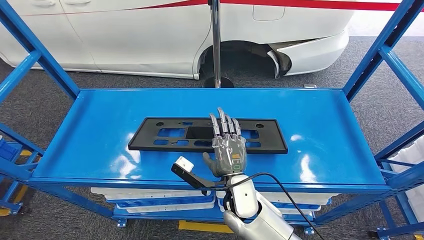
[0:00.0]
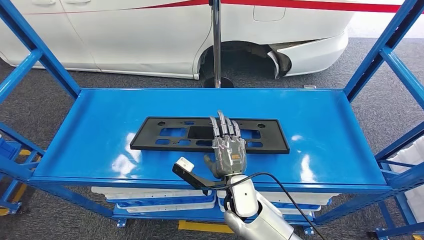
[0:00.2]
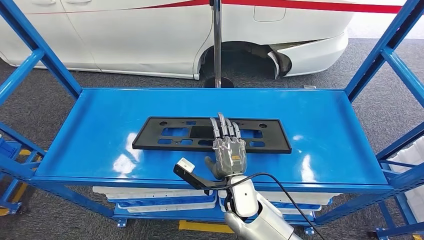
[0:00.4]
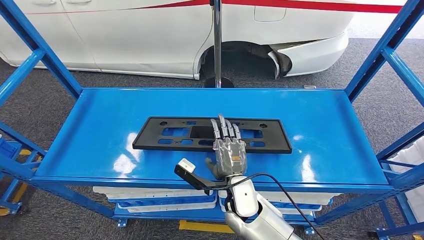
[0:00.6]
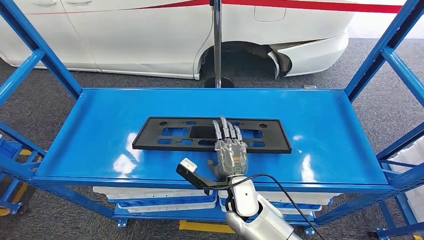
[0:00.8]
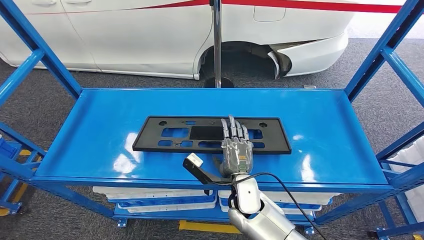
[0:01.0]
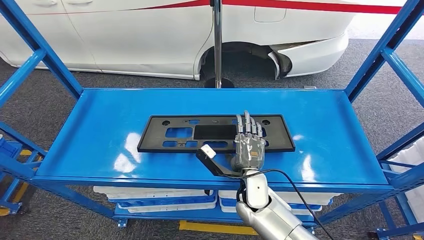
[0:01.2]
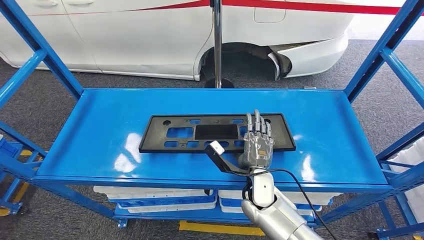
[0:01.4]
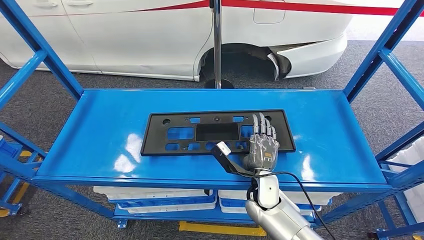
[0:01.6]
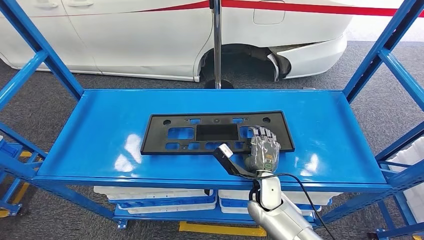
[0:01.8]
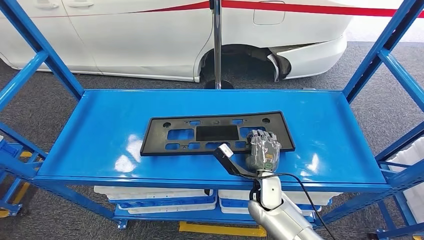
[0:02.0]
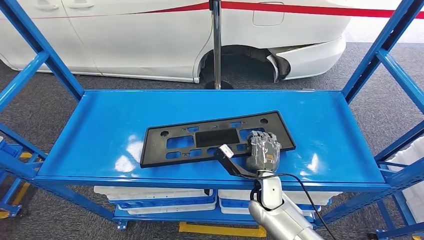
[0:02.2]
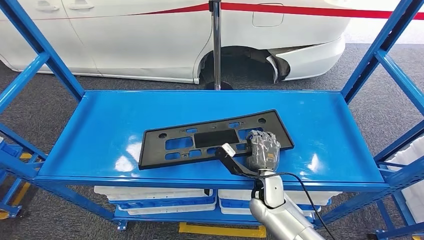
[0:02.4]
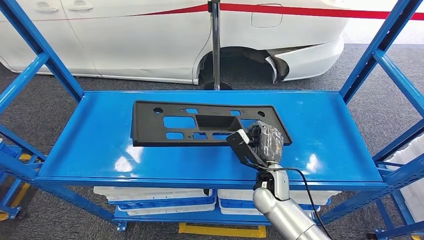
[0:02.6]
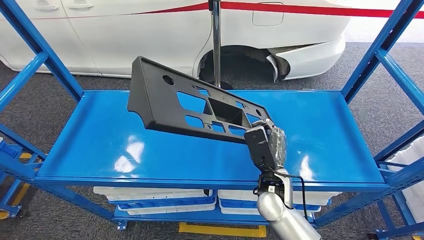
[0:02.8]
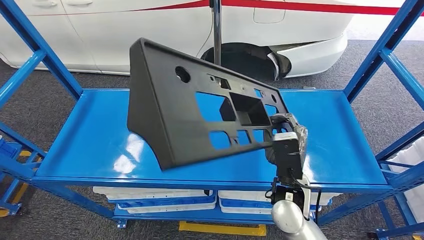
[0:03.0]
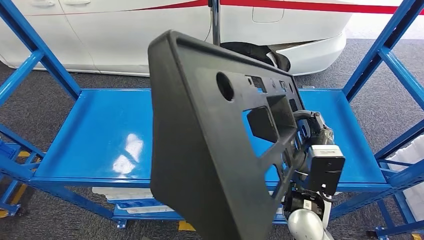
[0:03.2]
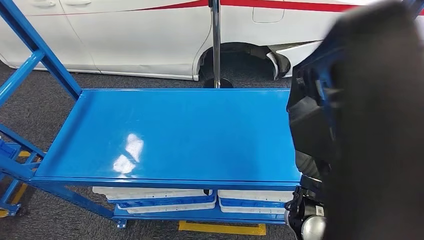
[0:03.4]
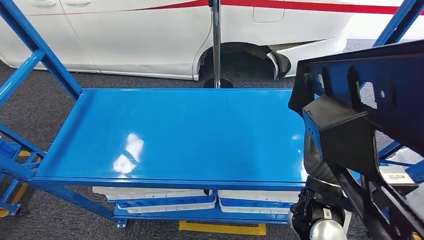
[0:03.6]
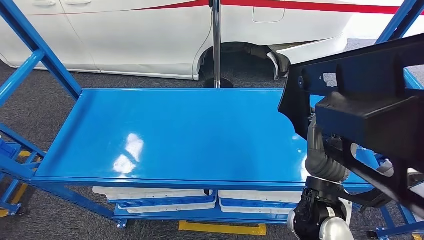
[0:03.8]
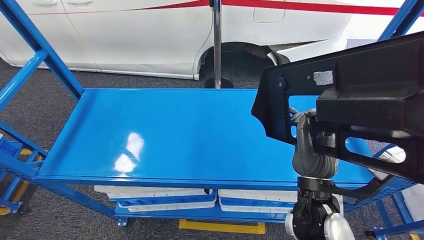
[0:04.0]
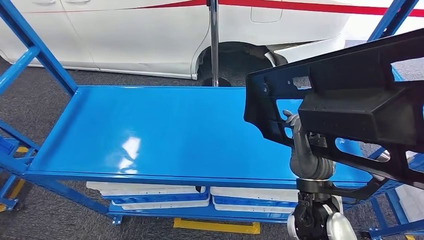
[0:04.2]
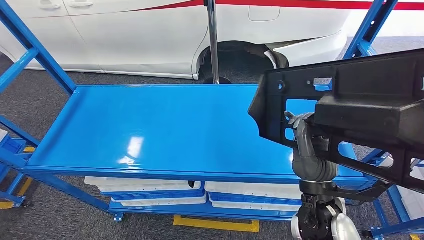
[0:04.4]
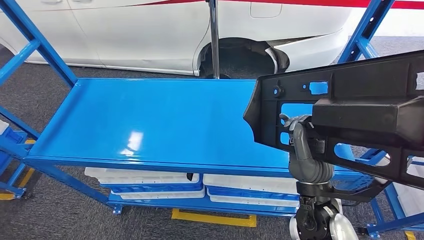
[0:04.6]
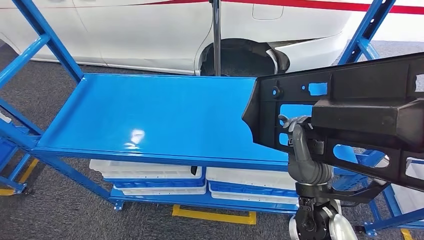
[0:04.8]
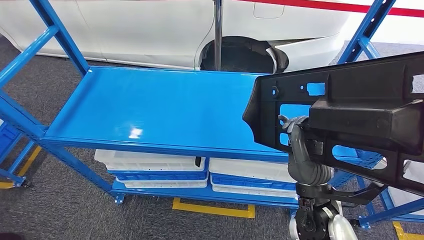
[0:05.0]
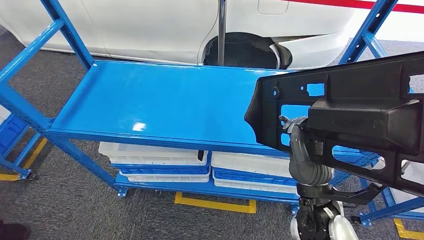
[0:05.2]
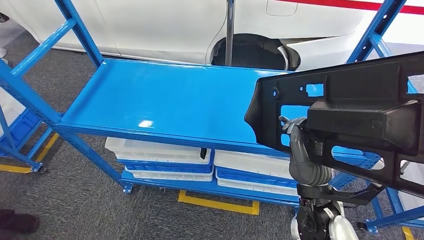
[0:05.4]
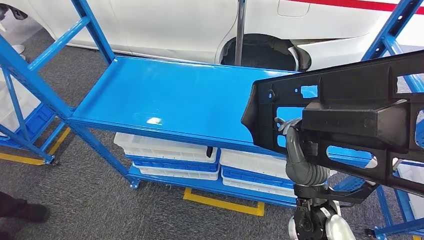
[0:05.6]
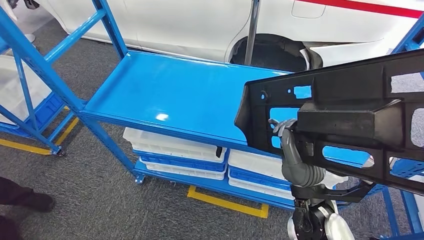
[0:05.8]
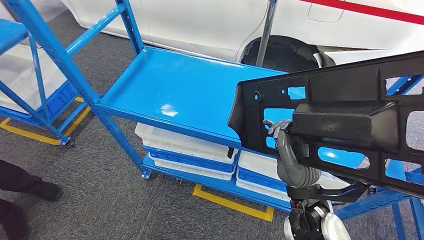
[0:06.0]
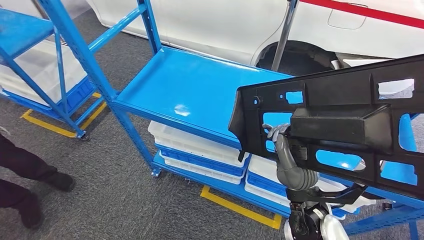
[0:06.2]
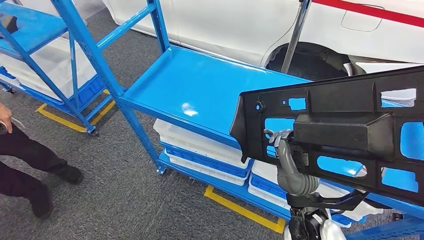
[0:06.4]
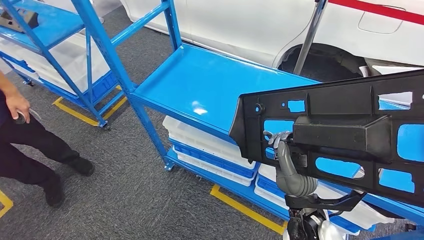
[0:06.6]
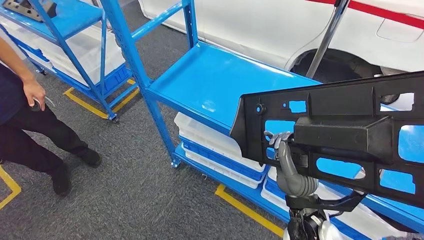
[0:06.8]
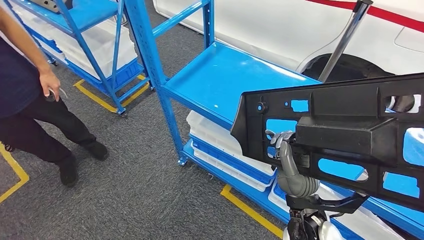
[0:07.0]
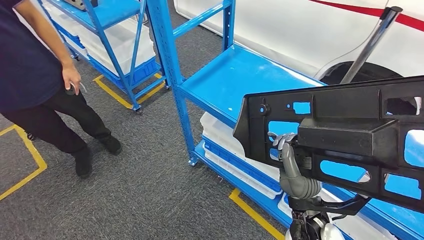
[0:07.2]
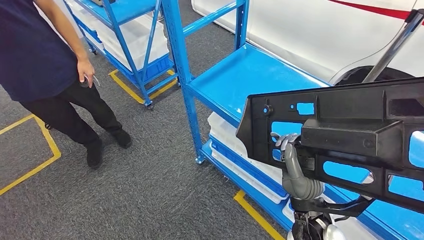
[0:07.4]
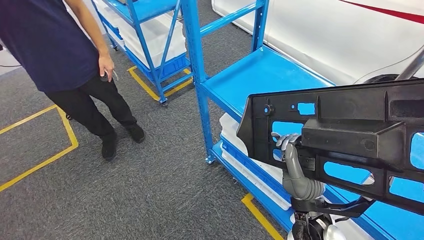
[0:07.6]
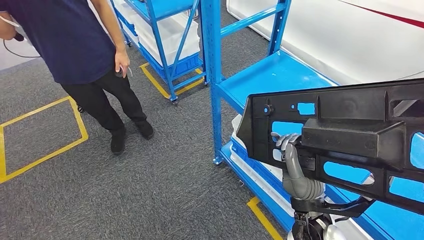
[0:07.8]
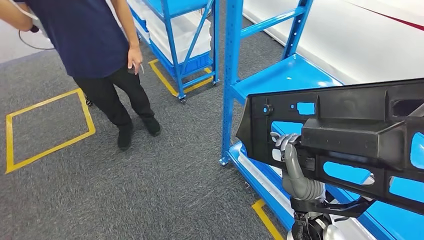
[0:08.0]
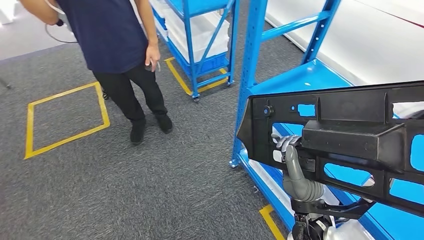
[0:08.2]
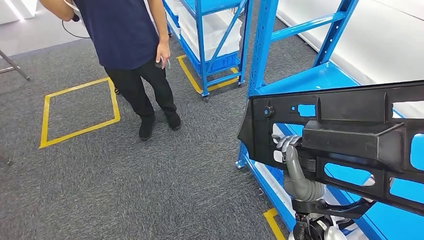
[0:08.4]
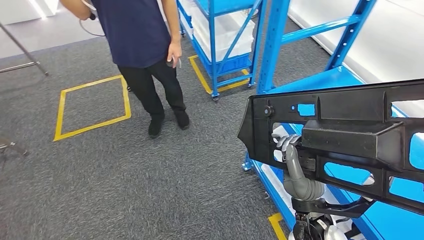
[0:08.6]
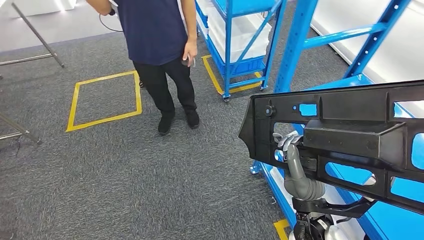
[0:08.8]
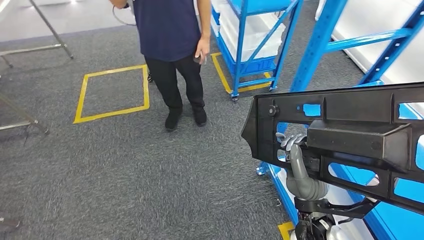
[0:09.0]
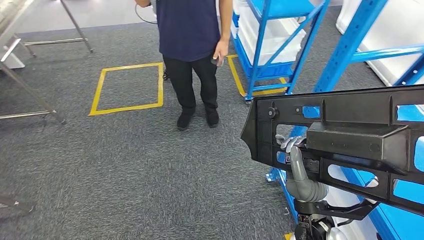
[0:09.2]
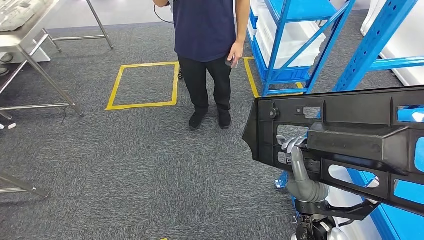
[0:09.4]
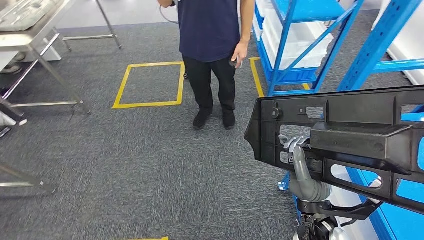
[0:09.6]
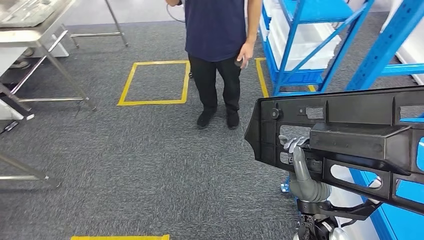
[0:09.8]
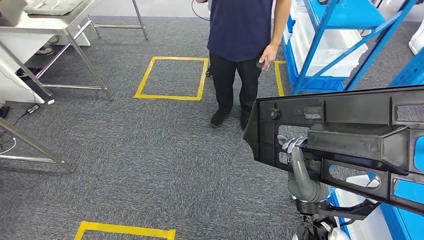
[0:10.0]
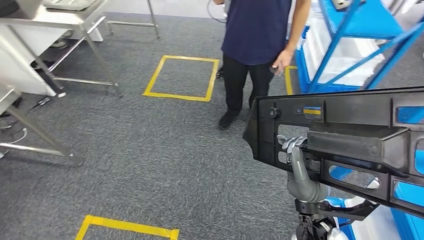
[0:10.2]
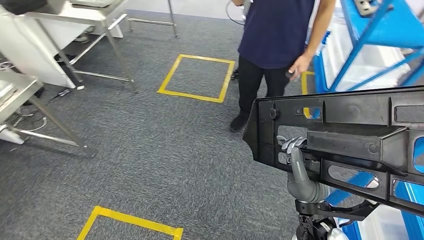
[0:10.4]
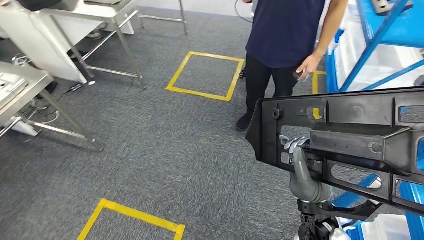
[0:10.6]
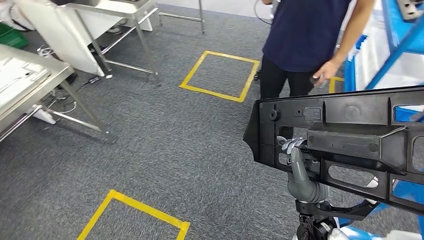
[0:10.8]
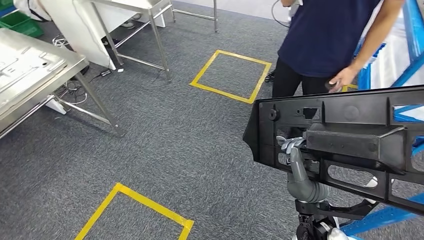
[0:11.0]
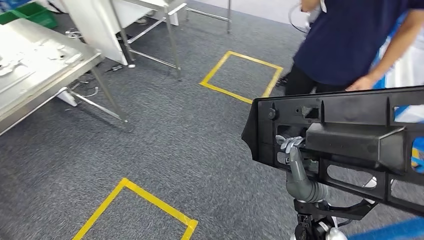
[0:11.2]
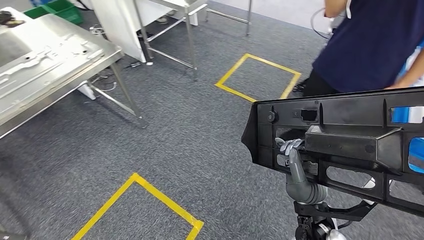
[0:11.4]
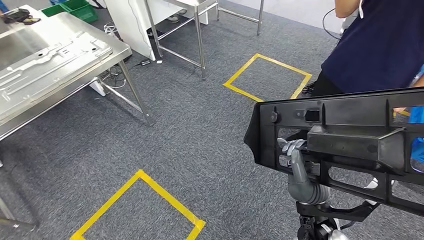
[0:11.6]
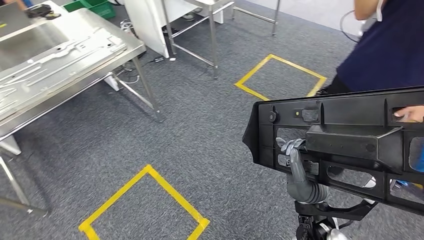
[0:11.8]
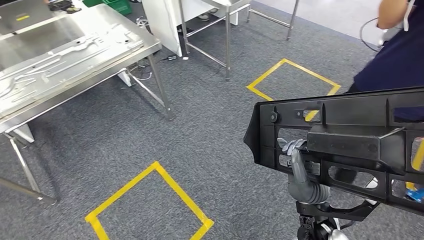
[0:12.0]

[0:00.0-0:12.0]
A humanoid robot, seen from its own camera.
Step, 0:00.0 to 0:03.4: Pick up the large material from the shelf.
0:01.6 to 0:03.0: The right hand is displaced upward by about 10 cm.

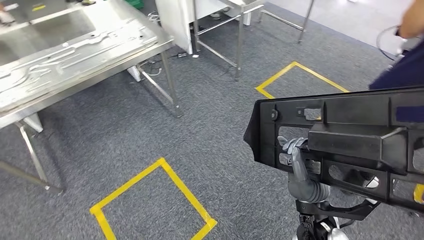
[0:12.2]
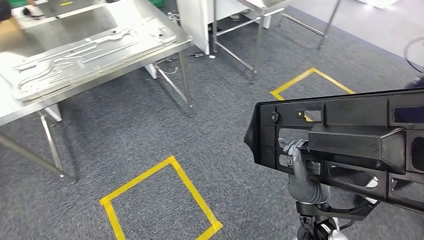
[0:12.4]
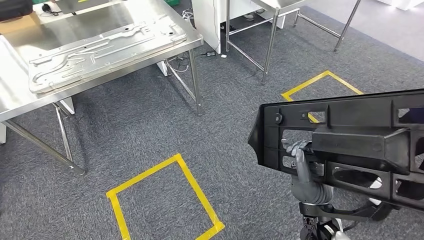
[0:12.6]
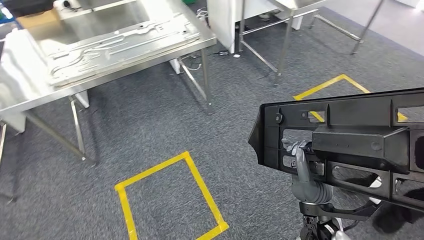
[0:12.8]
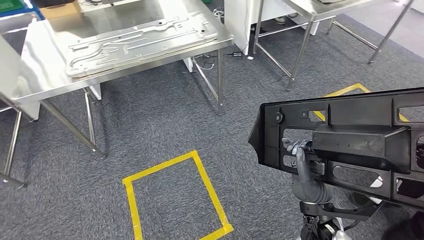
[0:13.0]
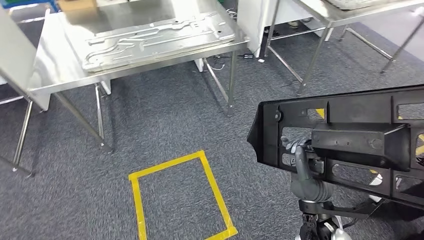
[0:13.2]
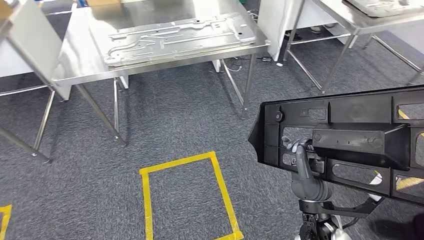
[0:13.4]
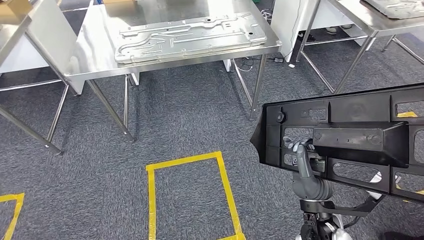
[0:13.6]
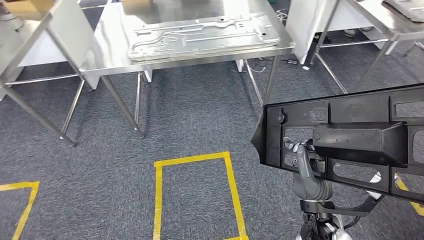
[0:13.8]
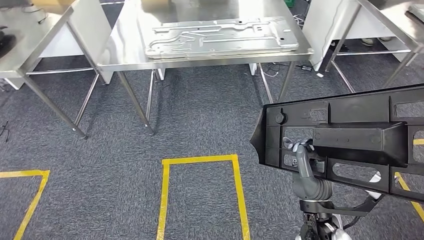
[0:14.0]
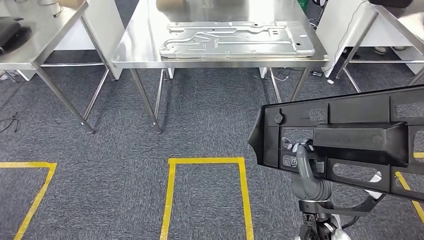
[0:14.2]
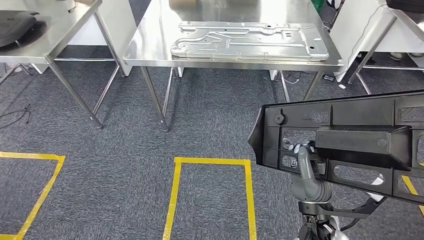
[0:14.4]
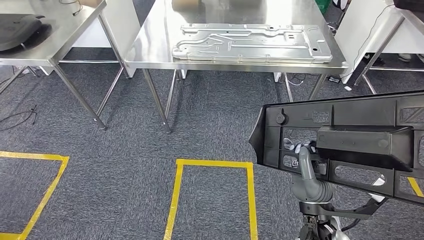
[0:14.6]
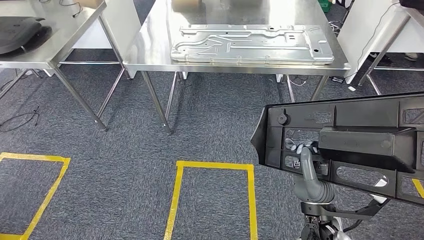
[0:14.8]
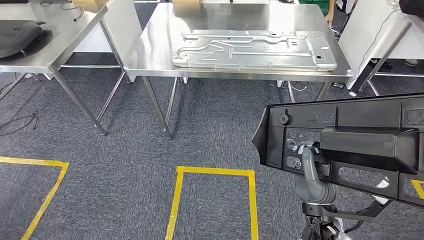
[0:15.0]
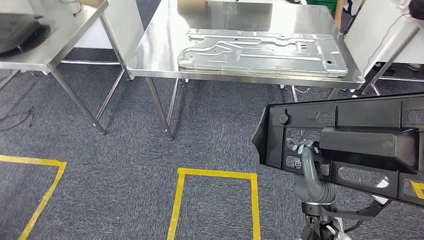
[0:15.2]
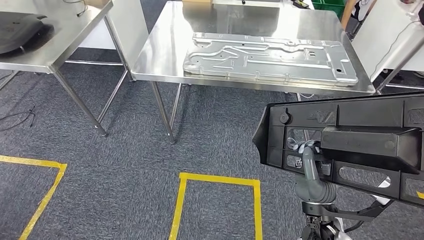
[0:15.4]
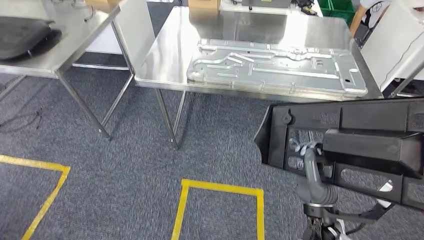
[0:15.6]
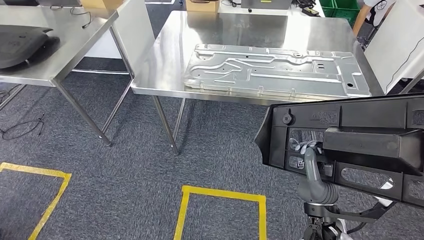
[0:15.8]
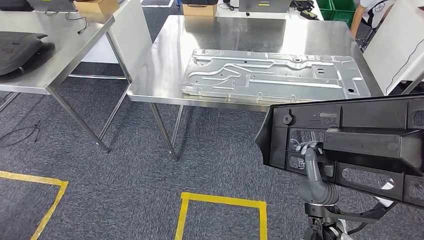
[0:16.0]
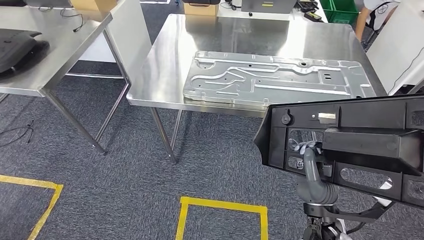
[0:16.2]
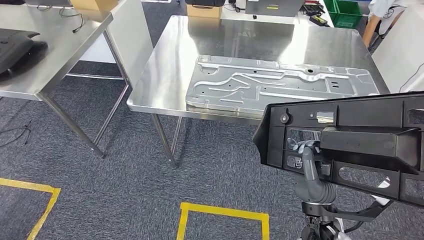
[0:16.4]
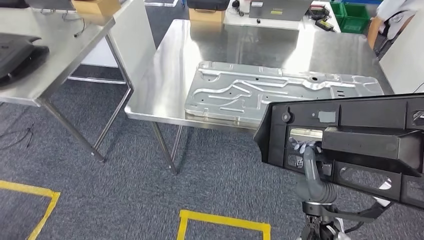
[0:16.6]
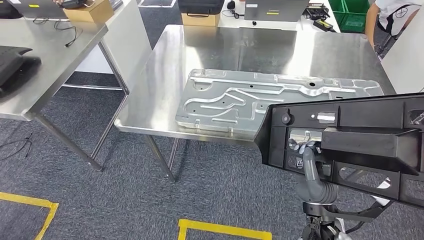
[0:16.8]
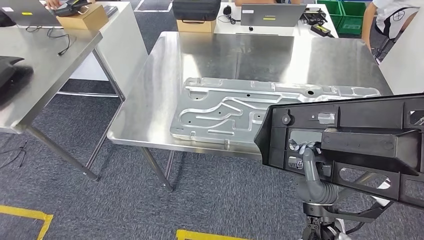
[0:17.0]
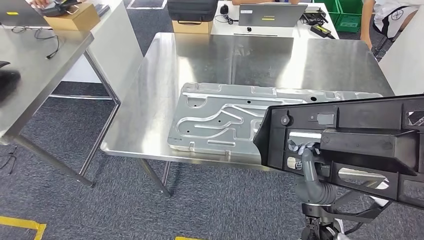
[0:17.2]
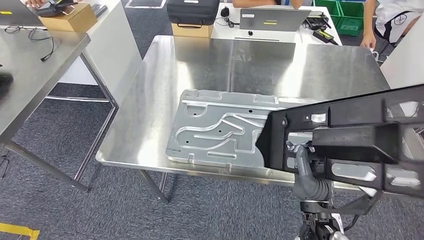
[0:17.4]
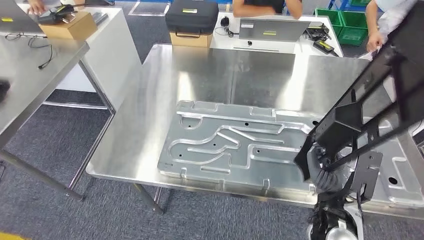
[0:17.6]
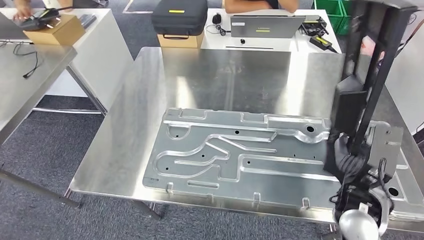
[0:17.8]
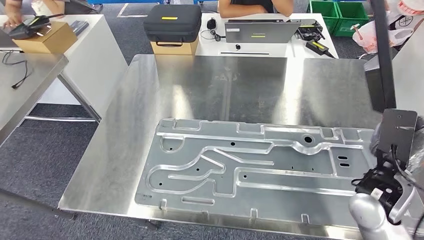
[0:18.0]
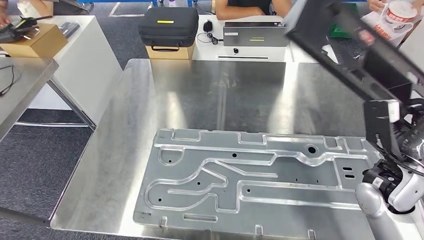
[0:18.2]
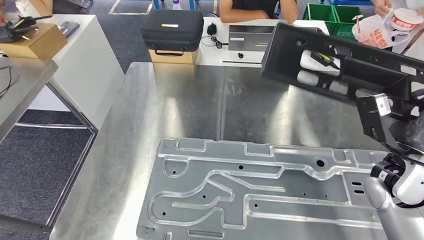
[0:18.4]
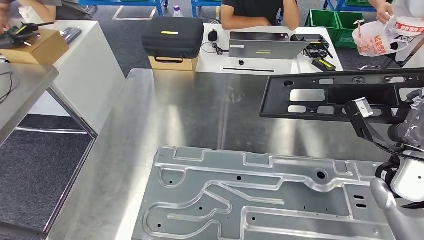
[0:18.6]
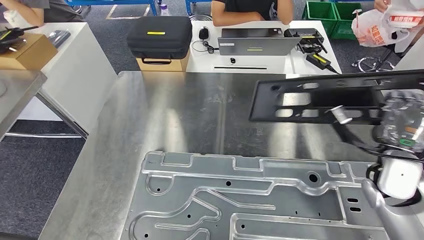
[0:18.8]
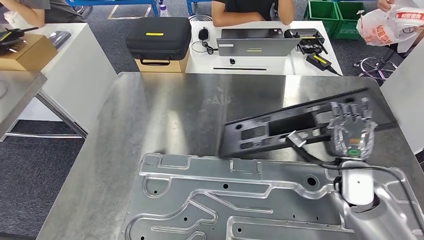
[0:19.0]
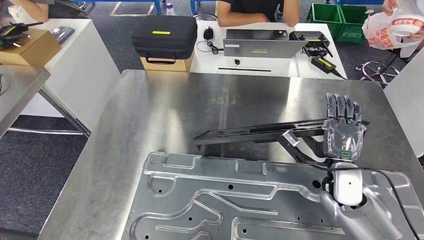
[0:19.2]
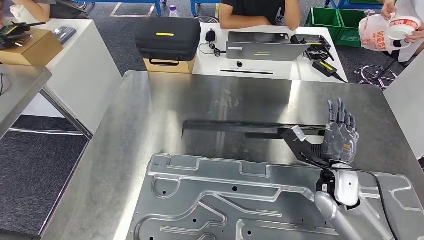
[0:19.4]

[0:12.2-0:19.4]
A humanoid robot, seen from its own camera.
Step, 0:12.2 to 0:17.6: Move the large material to the workbench.
